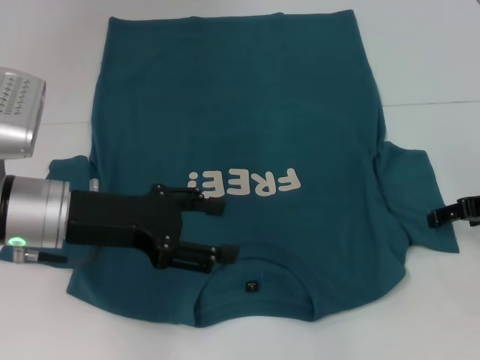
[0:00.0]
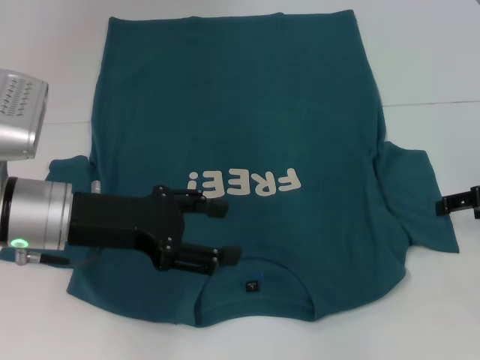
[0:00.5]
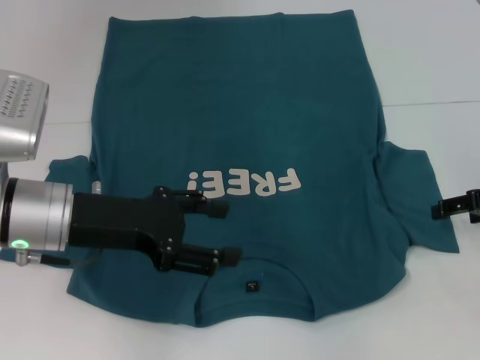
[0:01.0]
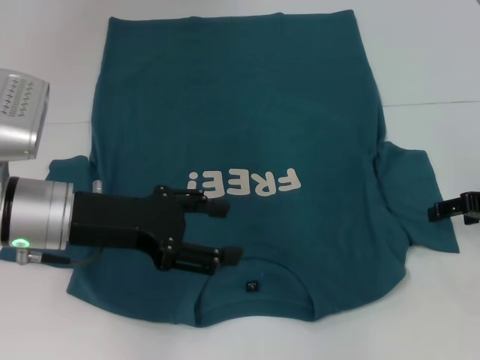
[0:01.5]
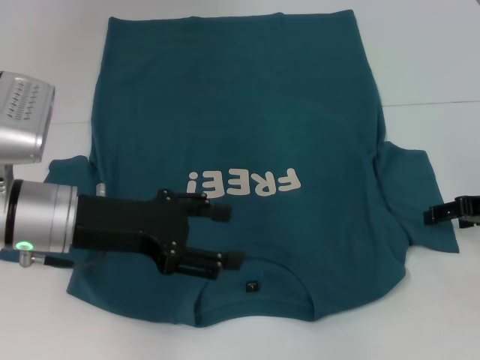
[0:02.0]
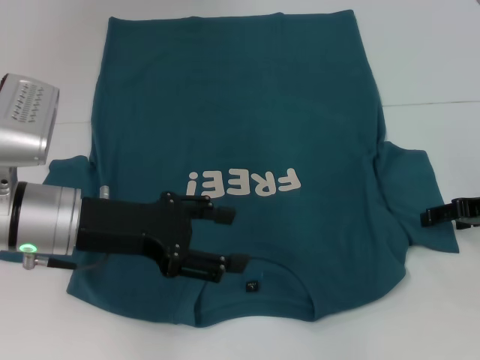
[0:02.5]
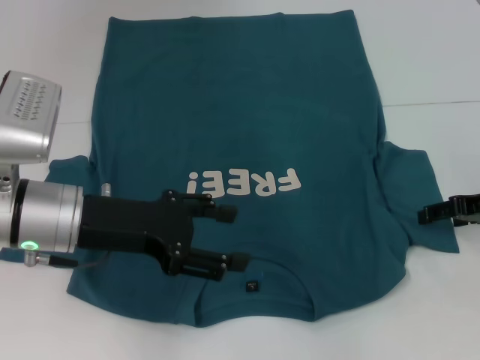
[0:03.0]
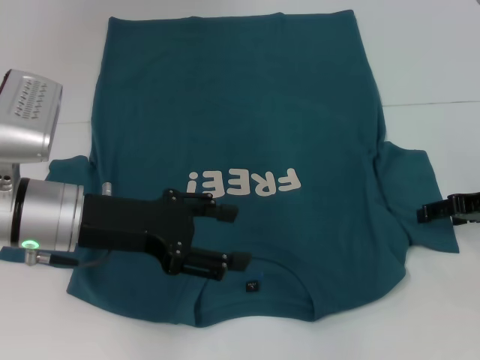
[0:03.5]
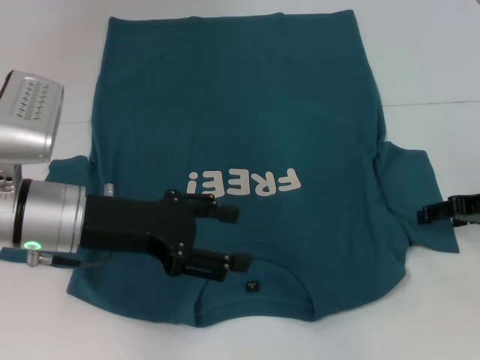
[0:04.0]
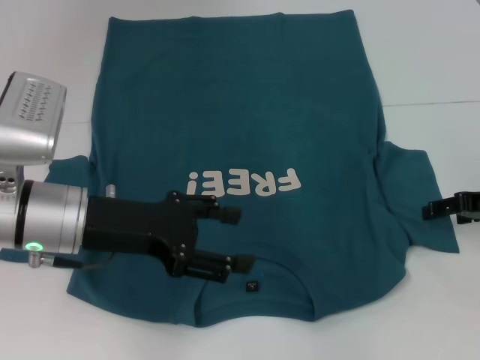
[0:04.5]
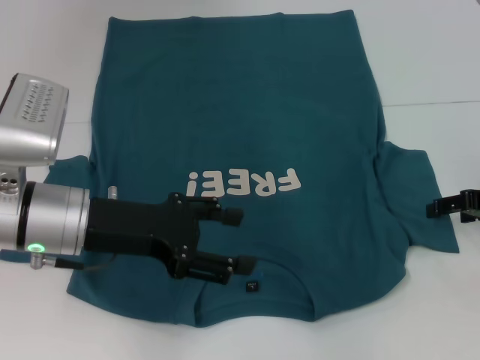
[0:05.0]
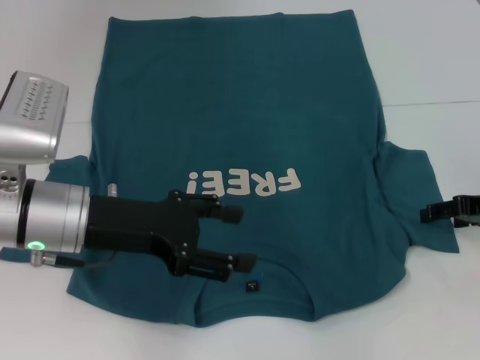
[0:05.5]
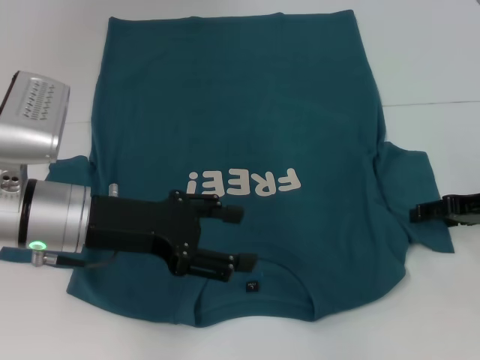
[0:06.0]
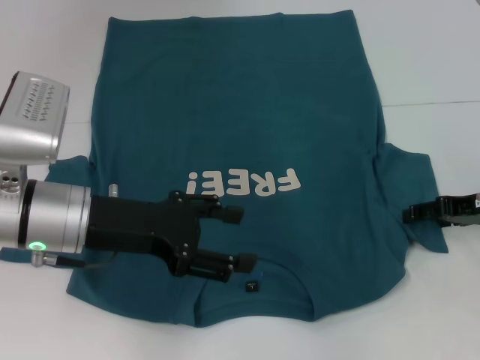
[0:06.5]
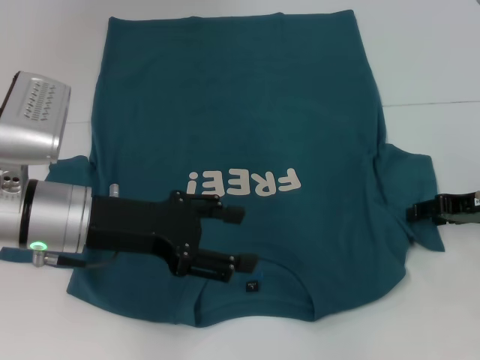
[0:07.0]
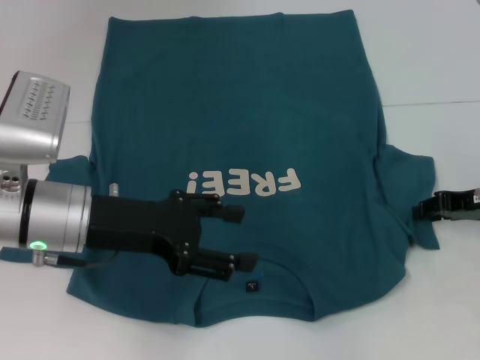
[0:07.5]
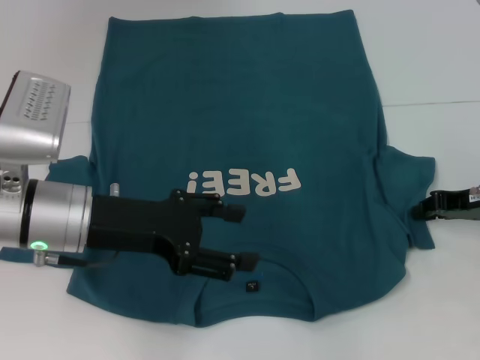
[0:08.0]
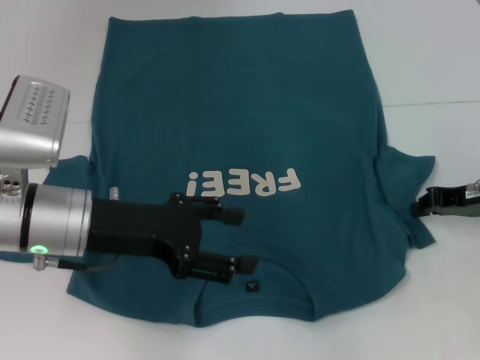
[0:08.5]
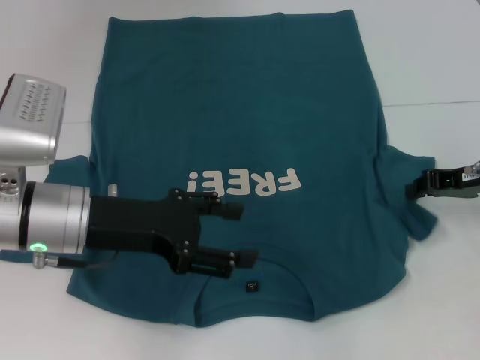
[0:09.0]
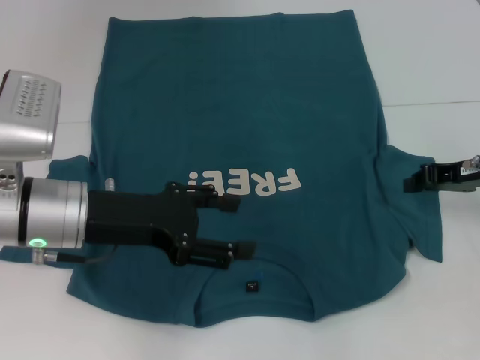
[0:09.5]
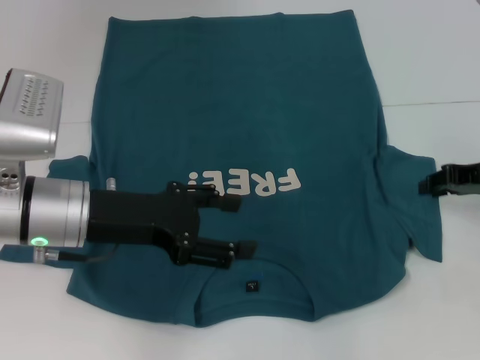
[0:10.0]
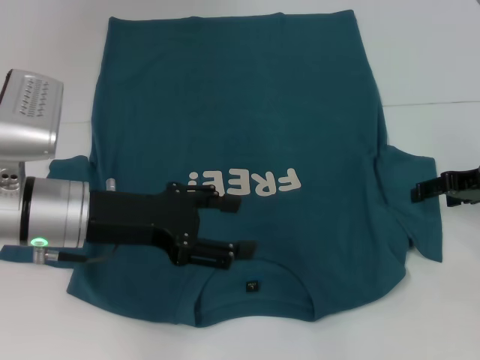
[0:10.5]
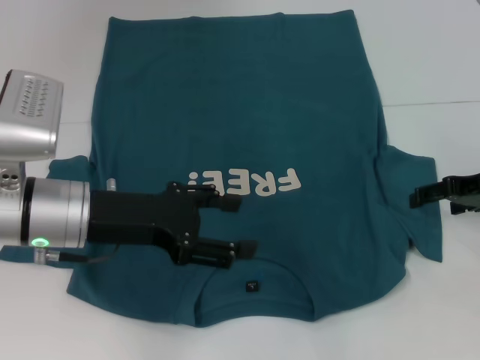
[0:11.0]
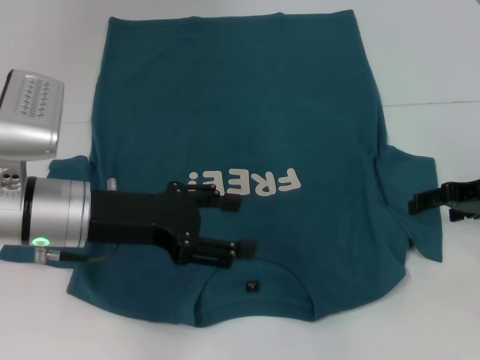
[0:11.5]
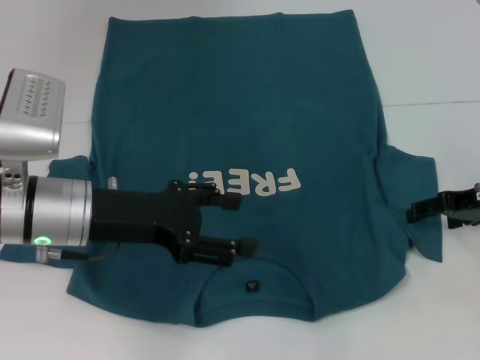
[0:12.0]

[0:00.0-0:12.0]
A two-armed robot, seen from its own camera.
0:00.0 to 0:02.0: There are only small adjustments of the grippers.
0:02.0 to 0:04.0: The two grippers keep their place.
0:04.0 to 0:06.0: The grippers stay close to where they were, moving slightly.
0:06.0 to 0:08.0: The right gripper closes up.
0:08.0 to 0:10.0: There are only small adjustments of the grippers.
0:10.0 to 0:12.0: The right gripper opens up.

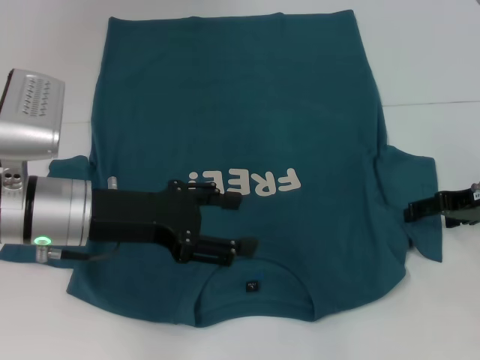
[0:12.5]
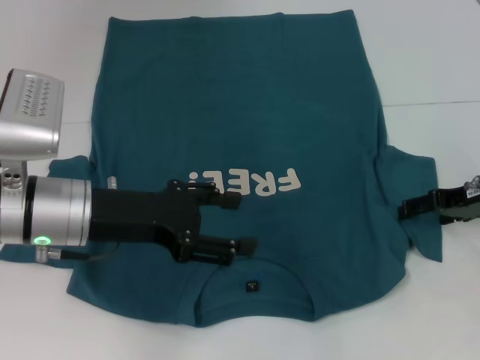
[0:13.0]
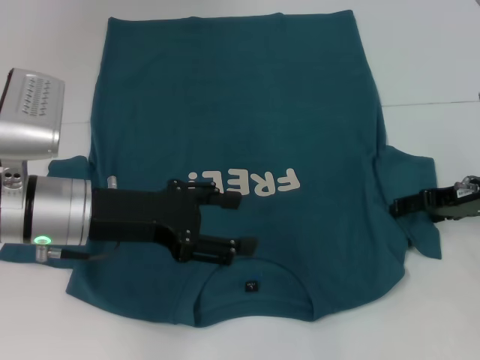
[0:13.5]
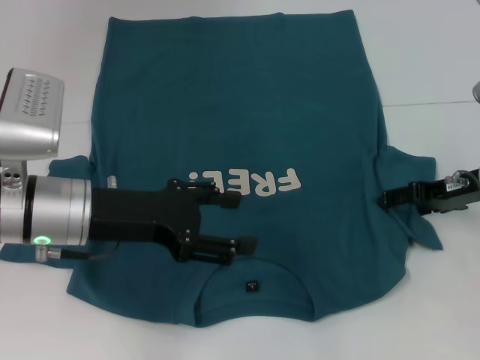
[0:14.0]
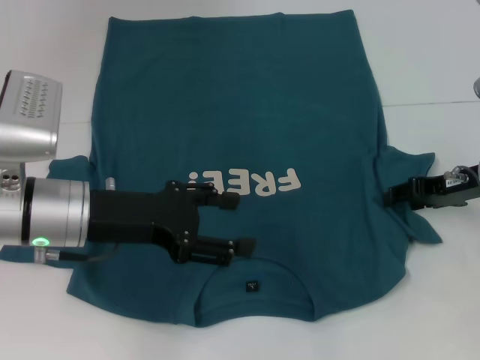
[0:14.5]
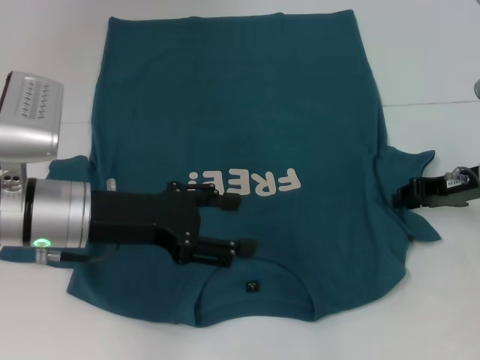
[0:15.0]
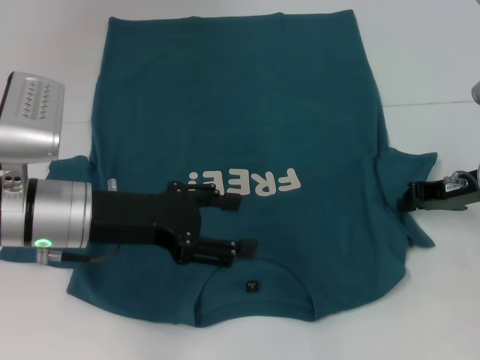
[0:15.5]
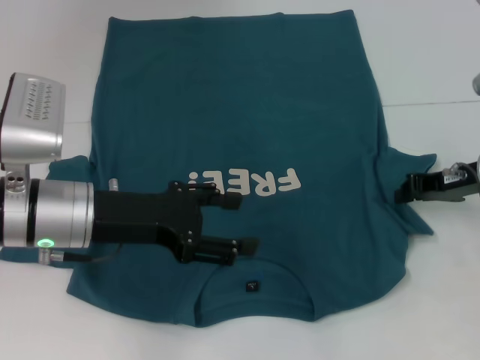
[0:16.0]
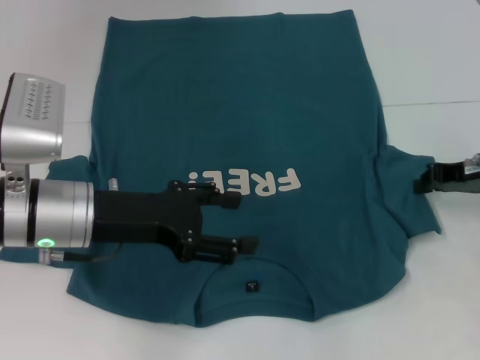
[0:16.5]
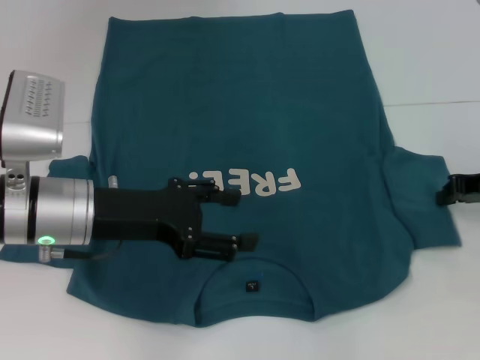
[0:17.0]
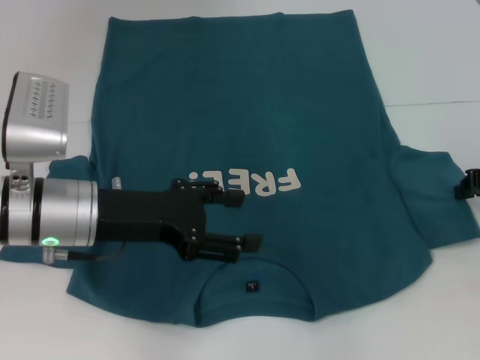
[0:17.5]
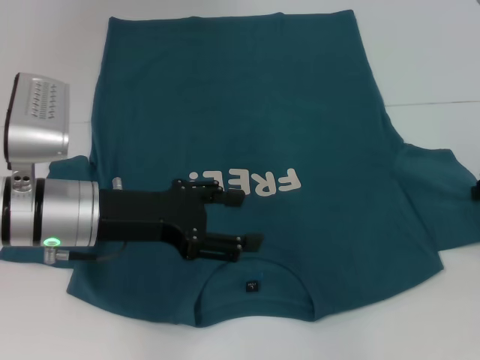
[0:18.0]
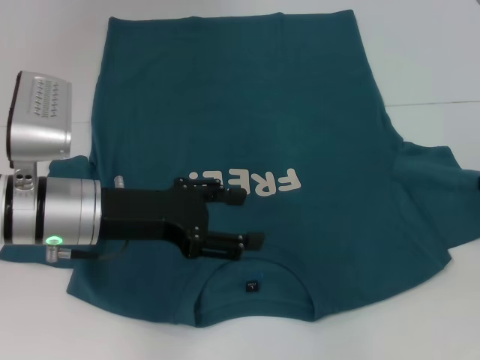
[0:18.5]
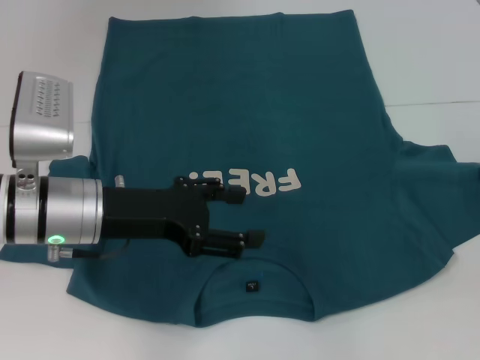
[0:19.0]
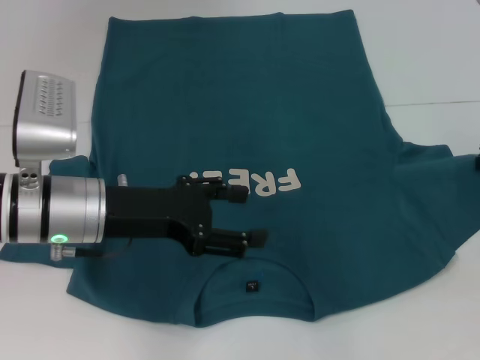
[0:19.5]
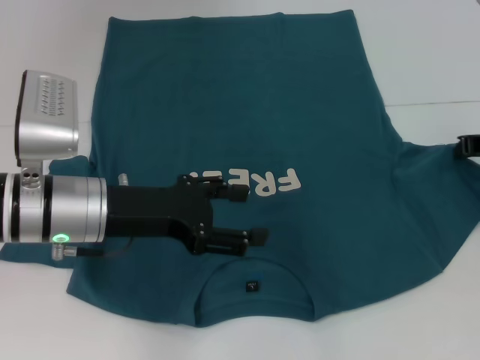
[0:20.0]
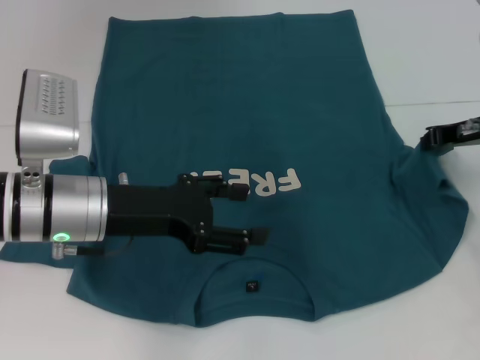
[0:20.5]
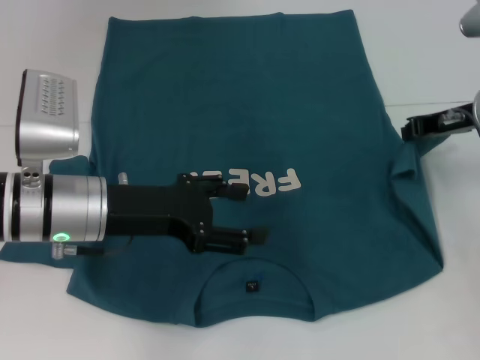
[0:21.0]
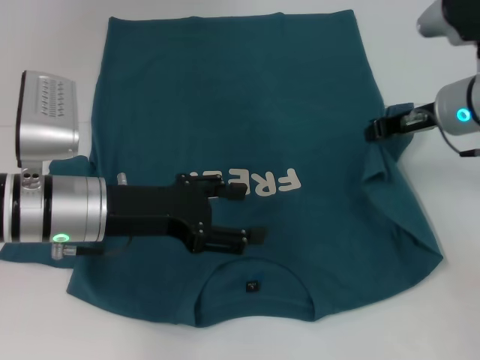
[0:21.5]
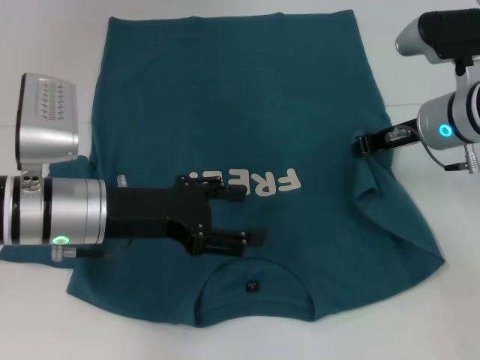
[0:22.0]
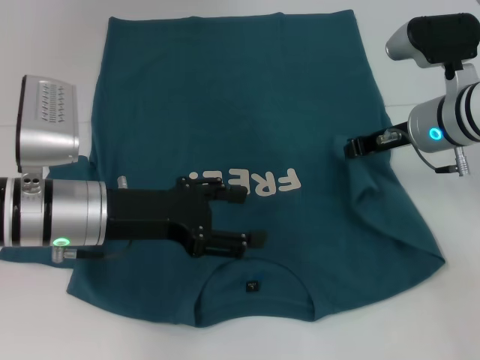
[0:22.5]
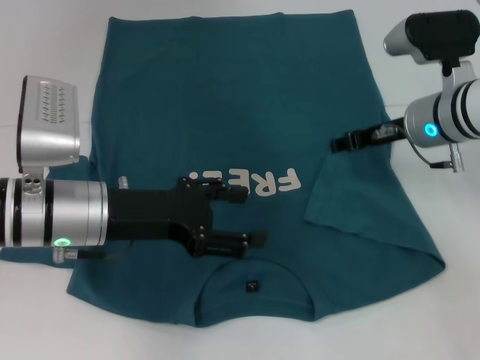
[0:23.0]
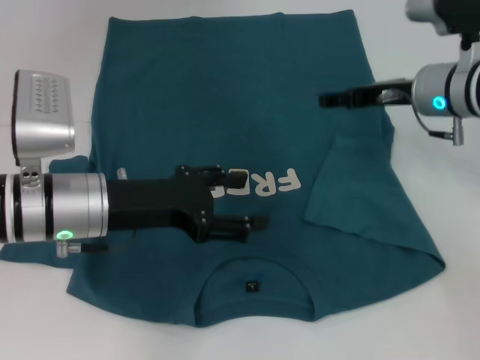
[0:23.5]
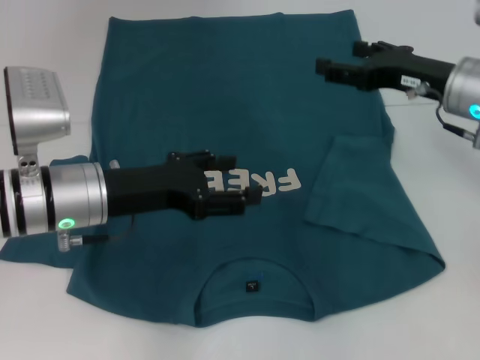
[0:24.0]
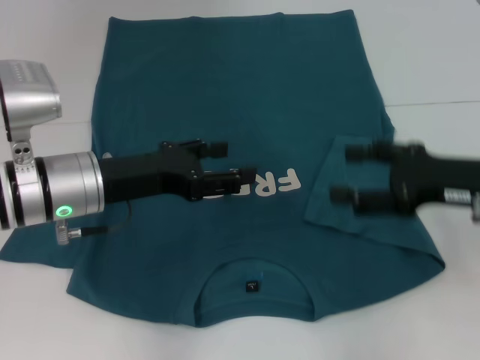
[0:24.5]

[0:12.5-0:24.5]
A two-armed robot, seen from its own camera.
Step, 0:12.5 to 0:22.5: Fold the bottom right sleeve to the right.
0:12.5 to 0:14.5: The grippers stay close to where they were, moving slightly.
0:14.5 to 0:16.5: The right gripper closes its fingers.
0:16.5 to 0:18.5: The right gripper shifts about 5 cm to the right.
0:18.5 to 0:20.5: The right gripper shifts roughly 5 cm to the left.
0:20.5 to 0:22.5: The right gripper heads to the left, covering roughly 10 cm.
0:22.5 to 0:24.5: The right gripper is displaced backward and to the right by approximately 10 cm, and opens up.

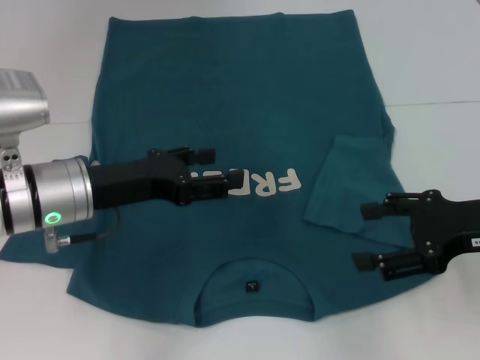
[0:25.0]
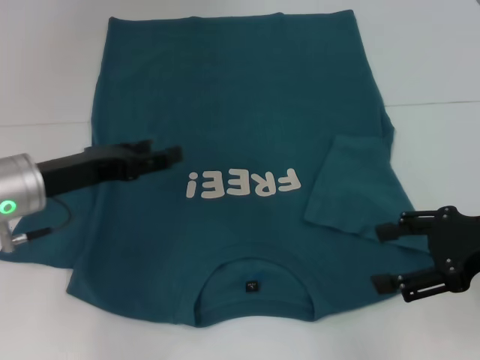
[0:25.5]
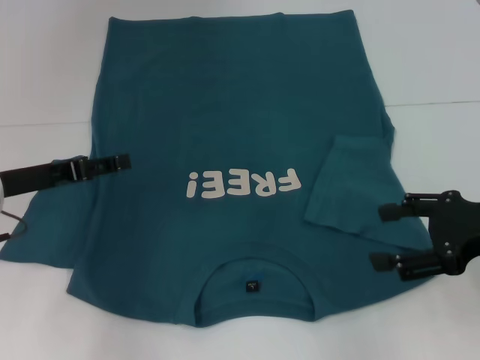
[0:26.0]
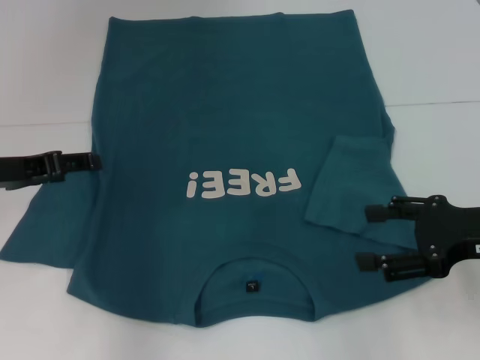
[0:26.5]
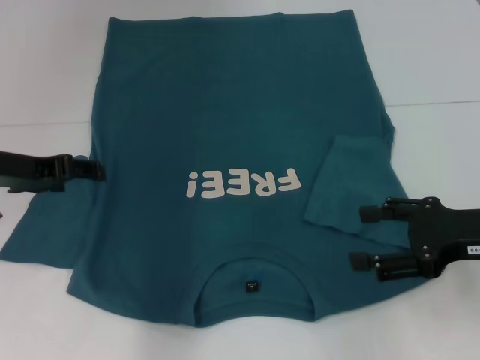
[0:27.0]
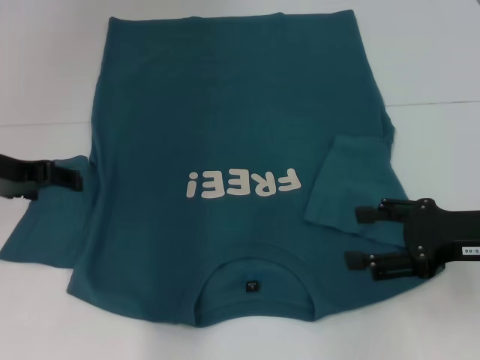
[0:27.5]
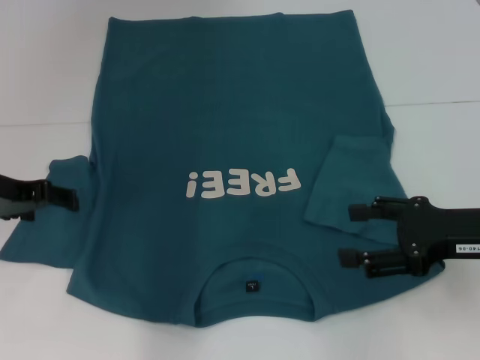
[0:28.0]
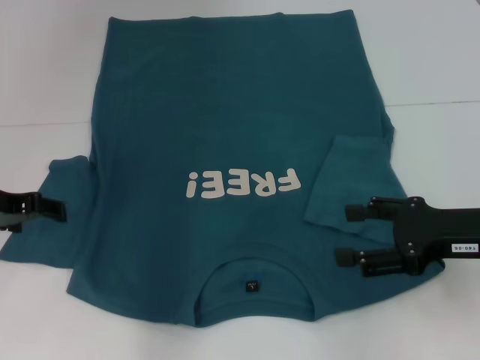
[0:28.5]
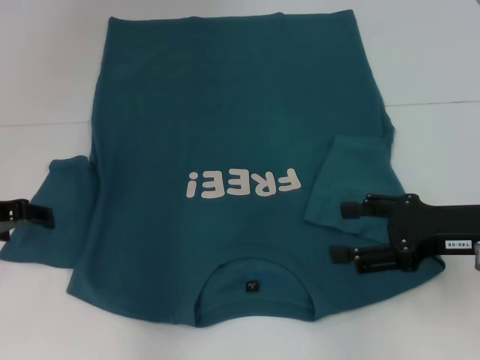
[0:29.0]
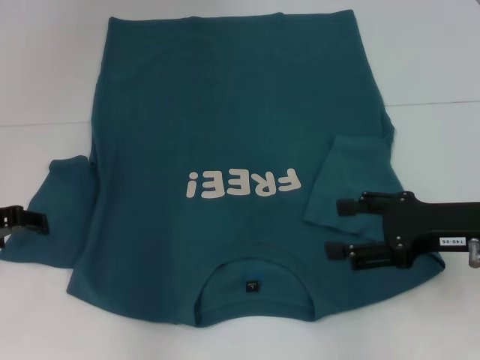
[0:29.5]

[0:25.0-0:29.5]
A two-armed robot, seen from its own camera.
0:25.0 to 0:27.0: The left gripper travels to the left by about 5 cm.
0:27.0 to 0:29.5: The left gripper shifts by some 5 cm.
